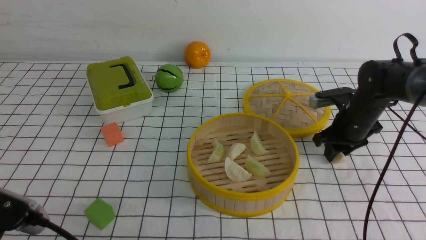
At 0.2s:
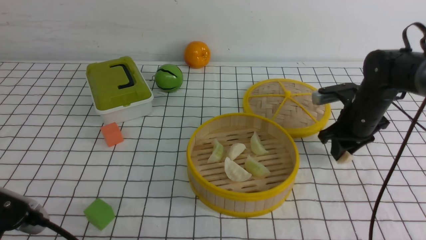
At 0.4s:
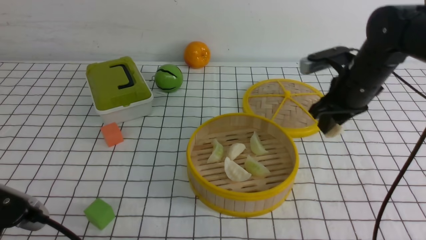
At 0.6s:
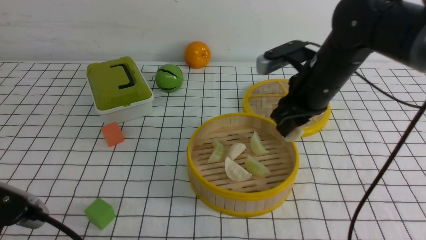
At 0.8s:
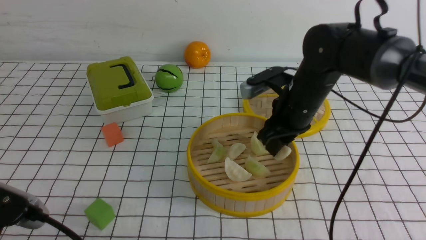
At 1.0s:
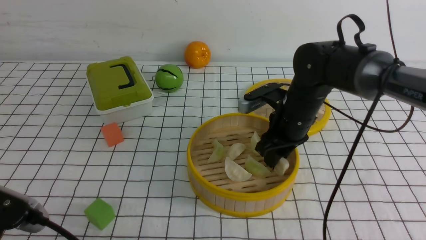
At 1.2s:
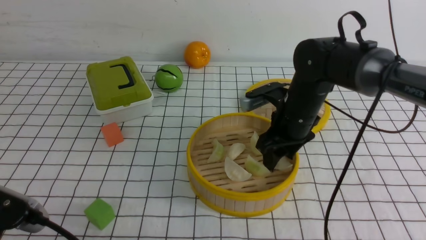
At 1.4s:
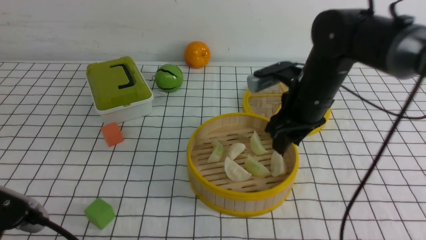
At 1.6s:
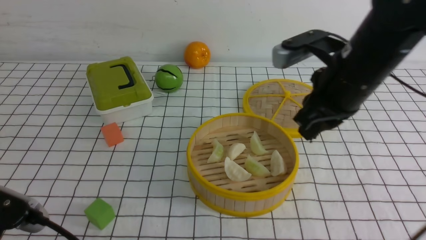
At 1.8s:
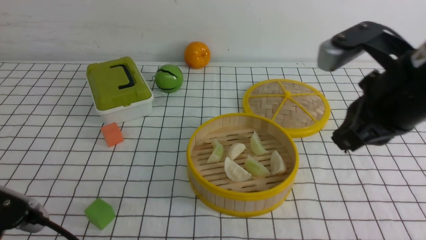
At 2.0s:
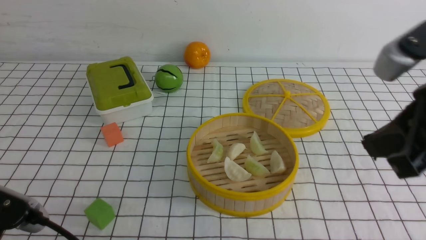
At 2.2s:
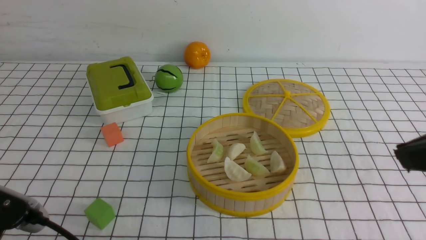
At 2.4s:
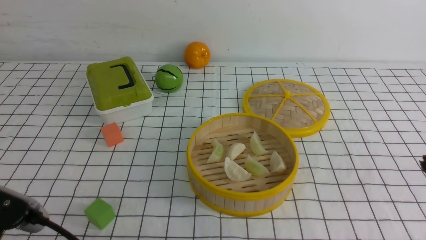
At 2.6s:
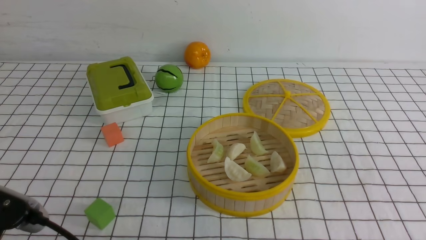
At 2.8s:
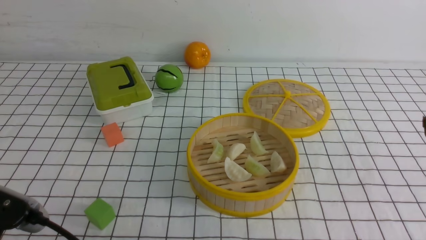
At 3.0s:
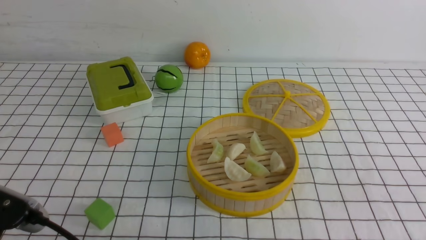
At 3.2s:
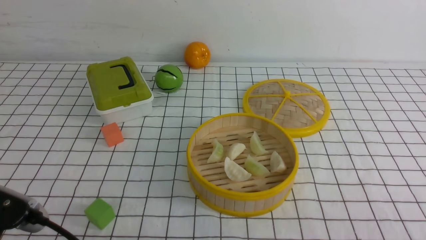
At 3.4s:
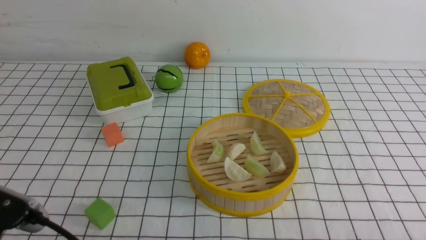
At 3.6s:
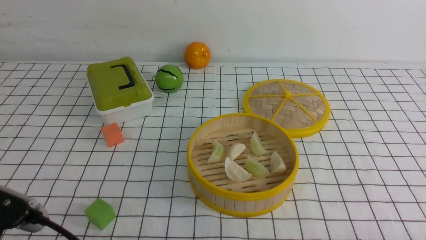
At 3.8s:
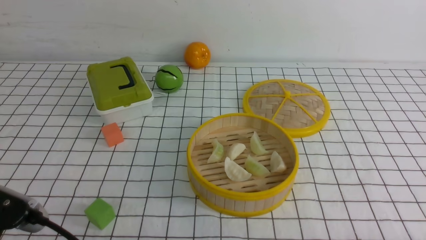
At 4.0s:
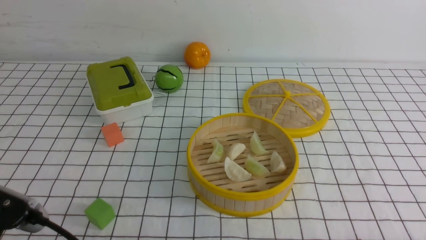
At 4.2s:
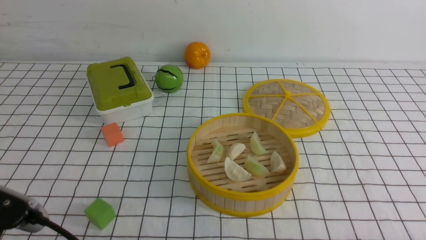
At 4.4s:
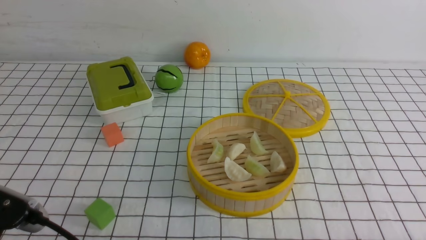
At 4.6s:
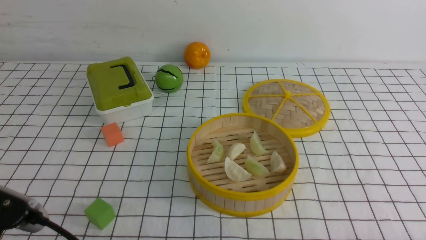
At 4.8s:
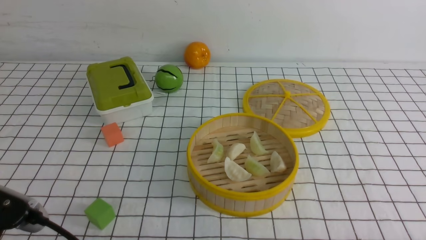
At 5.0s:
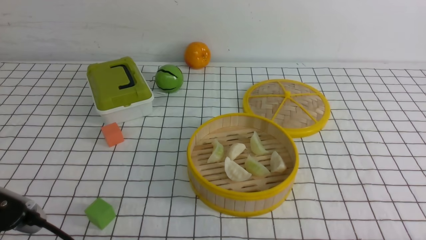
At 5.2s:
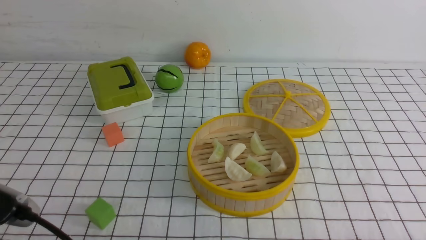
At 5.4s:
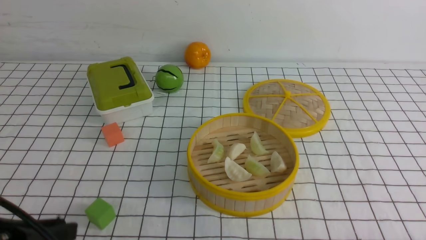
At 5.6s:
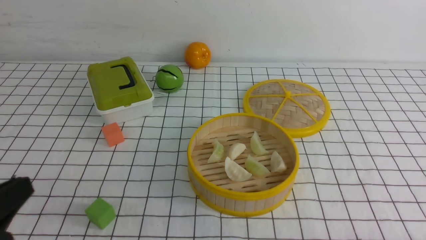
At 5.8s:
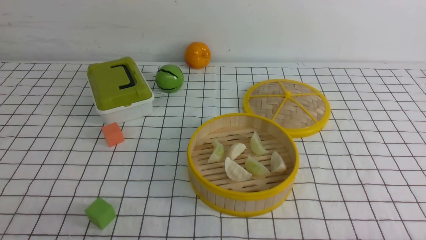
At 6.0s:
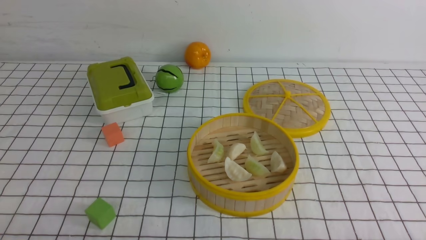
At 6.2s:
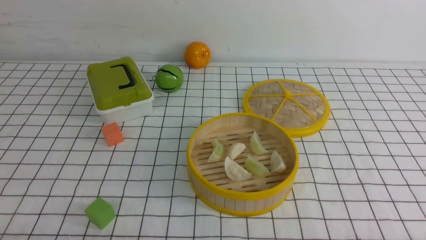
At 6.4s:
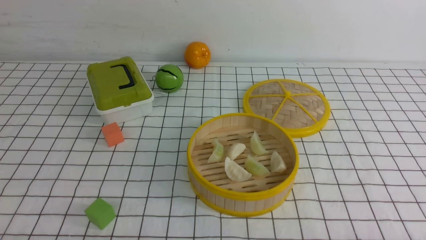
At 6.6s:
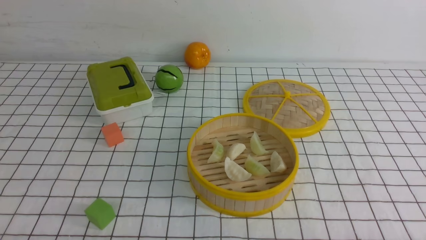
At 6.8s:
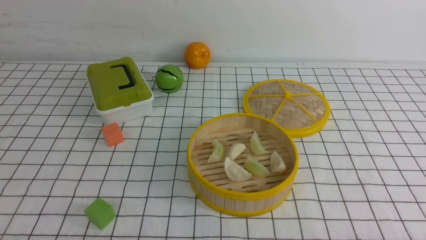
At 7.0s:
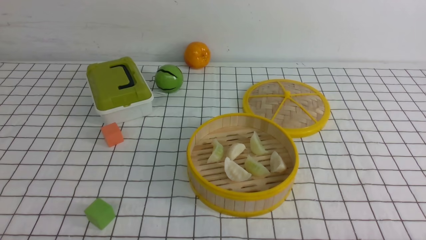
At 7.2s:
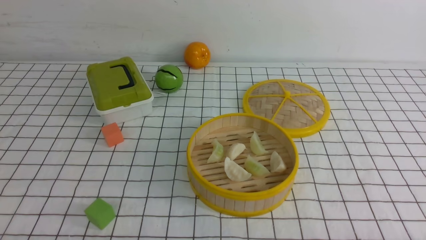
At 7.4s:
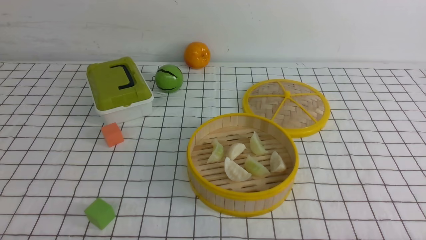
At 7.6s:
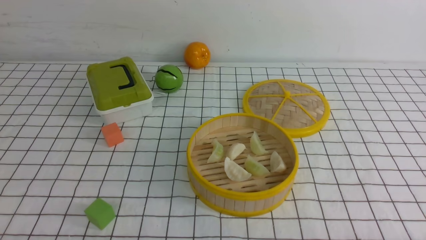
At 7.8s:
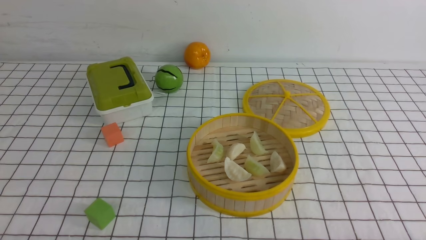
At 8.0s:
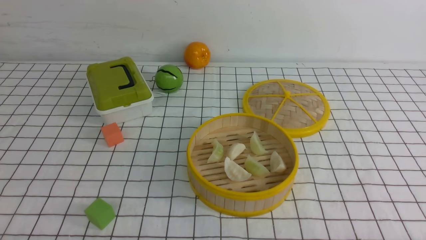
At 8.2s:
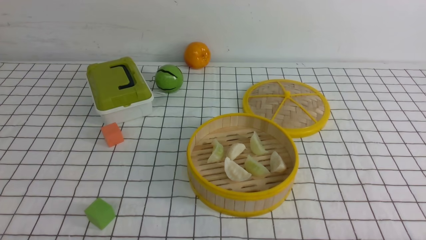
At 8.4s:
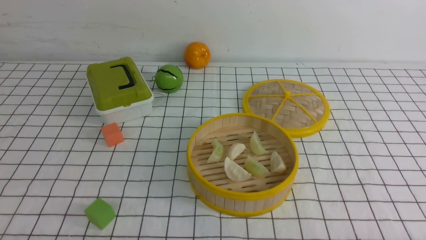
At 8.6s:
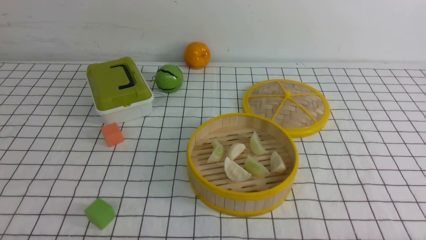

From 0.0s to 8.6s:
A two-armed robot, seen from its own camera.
Task of the whole recording: put the dumplings into the steamer on the table with the white tablecloth.
Step, from 0.8s to 1.6s: use the right arm to put the dumpling into the steamer.
From 0.0s to 1.4s: The right gripper goes some 15 cm to the left, upward and backward.
From 1.4s to 2.8s: The right gripper goes approximately 30 cm backward, upward and to the right, and closes.
From 4.4s to 5.8s: The left gripper moves approximately 5 cm.
From 7.2s to 8.6s: The two grippers keep their place.

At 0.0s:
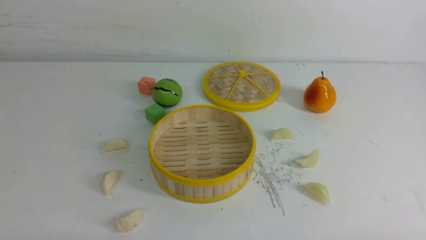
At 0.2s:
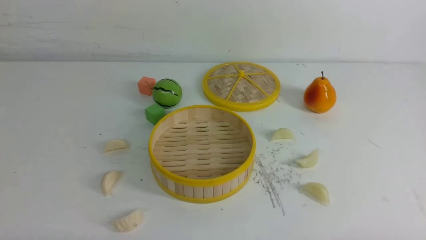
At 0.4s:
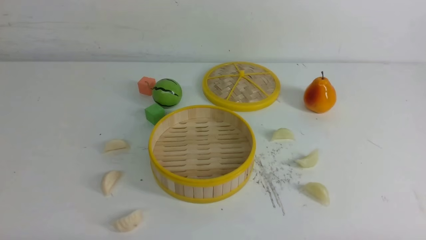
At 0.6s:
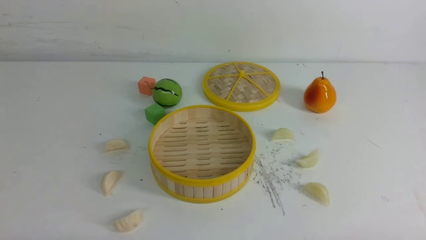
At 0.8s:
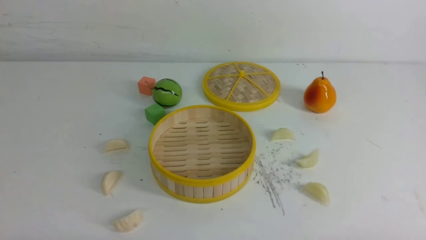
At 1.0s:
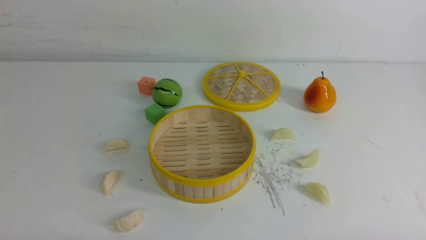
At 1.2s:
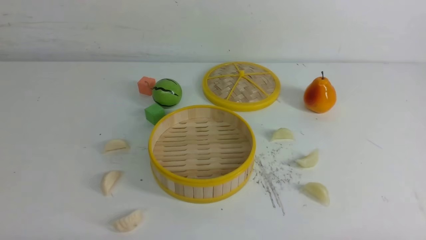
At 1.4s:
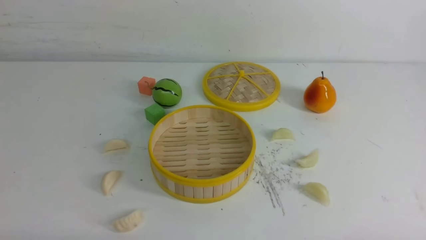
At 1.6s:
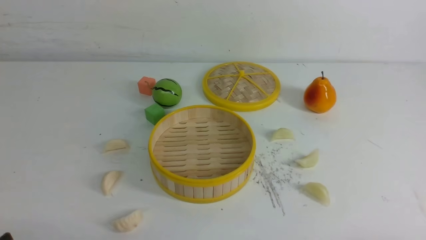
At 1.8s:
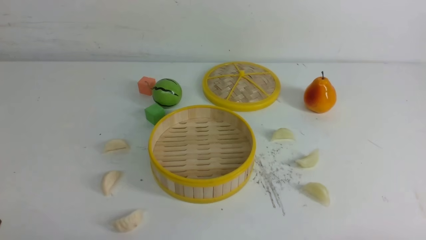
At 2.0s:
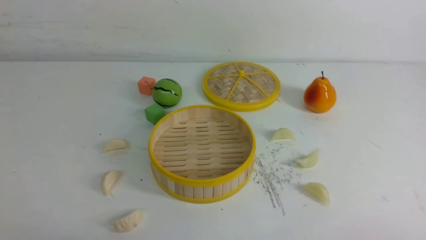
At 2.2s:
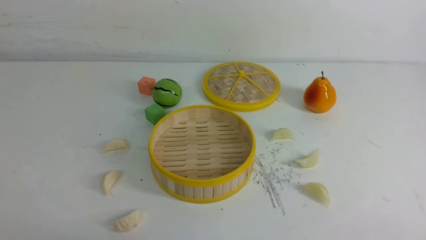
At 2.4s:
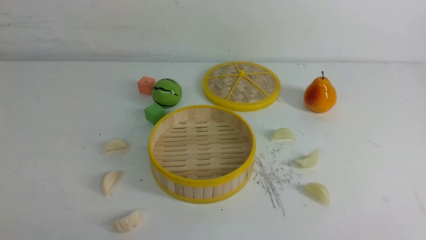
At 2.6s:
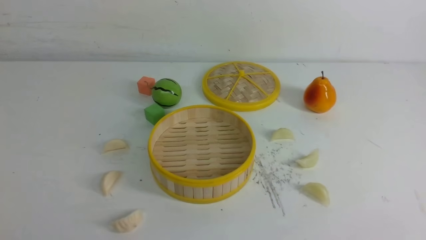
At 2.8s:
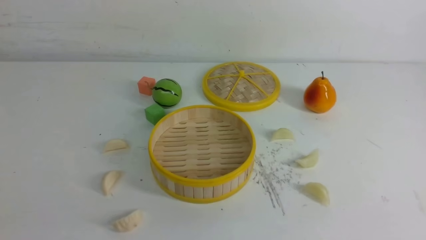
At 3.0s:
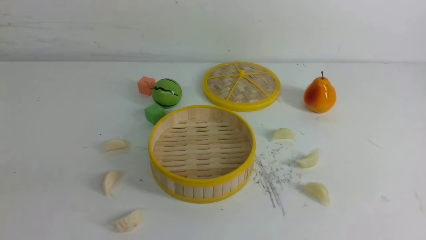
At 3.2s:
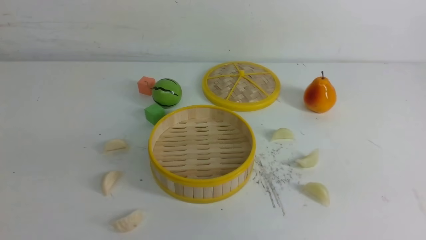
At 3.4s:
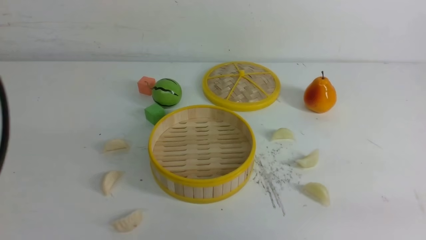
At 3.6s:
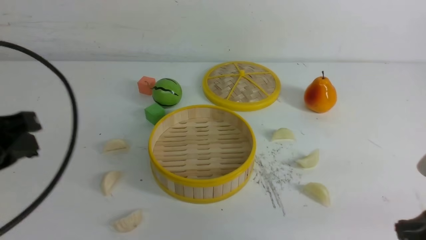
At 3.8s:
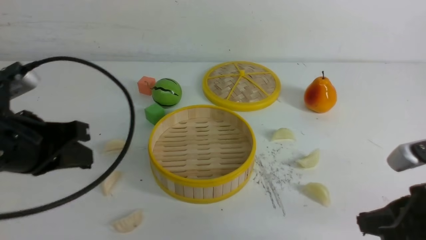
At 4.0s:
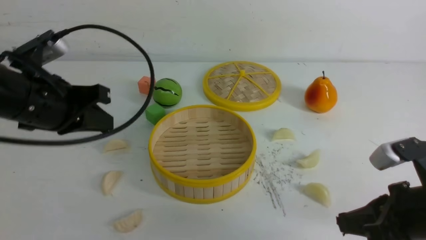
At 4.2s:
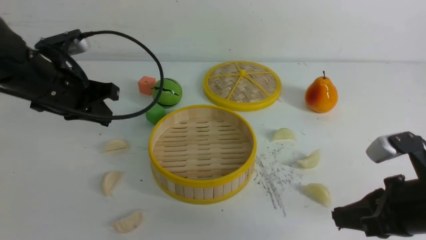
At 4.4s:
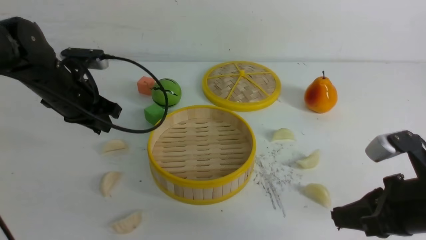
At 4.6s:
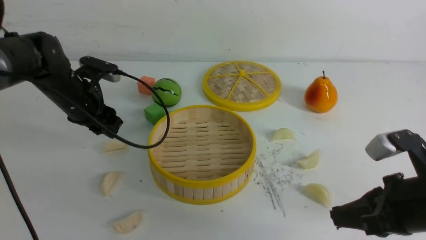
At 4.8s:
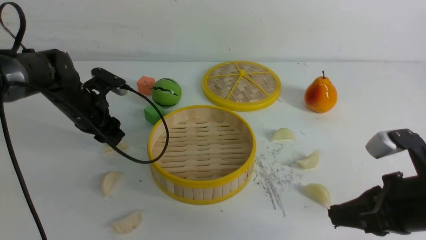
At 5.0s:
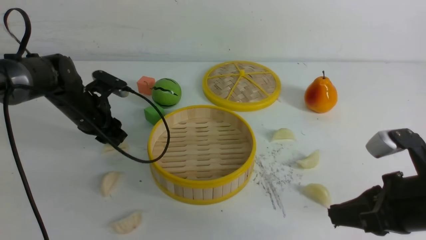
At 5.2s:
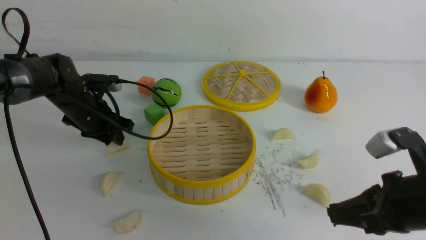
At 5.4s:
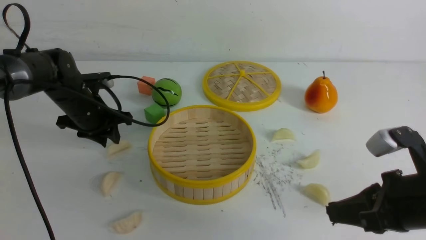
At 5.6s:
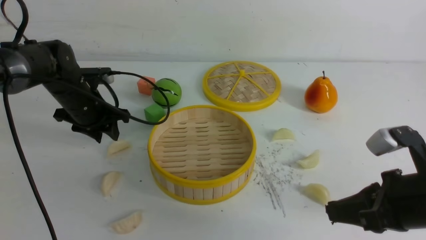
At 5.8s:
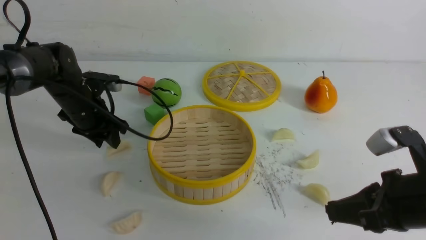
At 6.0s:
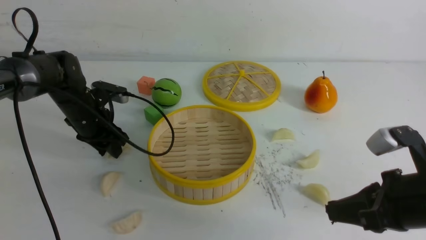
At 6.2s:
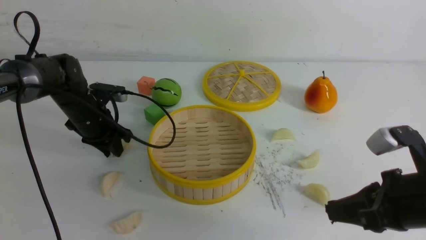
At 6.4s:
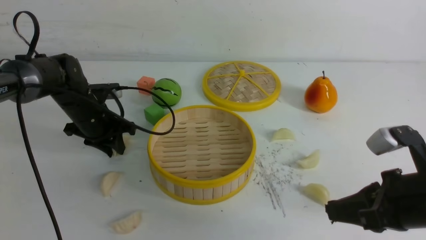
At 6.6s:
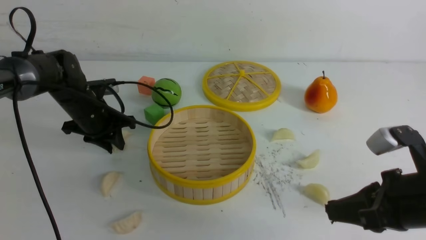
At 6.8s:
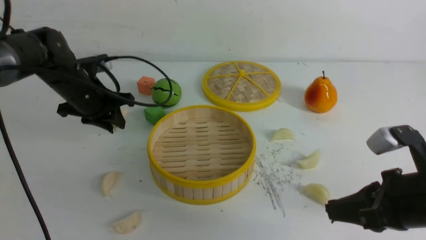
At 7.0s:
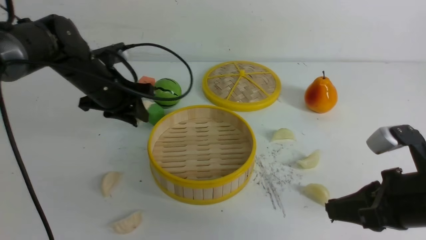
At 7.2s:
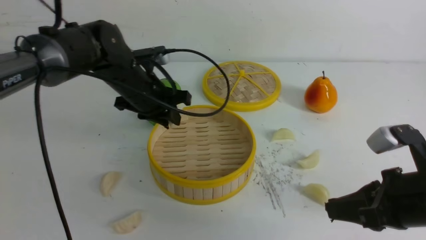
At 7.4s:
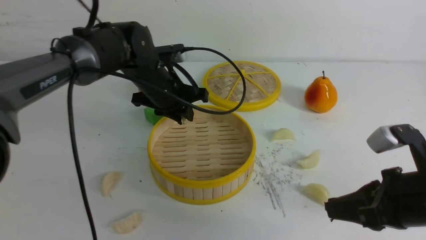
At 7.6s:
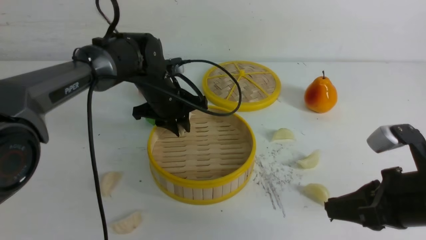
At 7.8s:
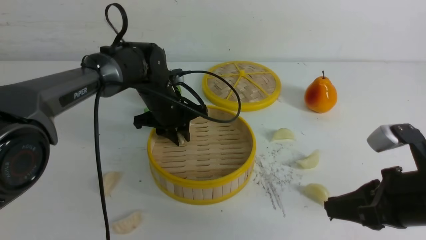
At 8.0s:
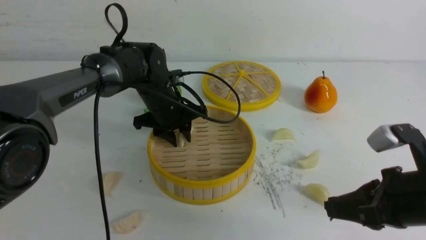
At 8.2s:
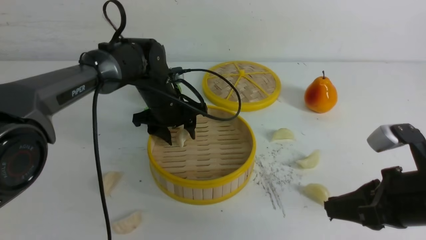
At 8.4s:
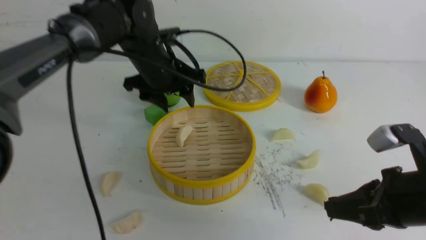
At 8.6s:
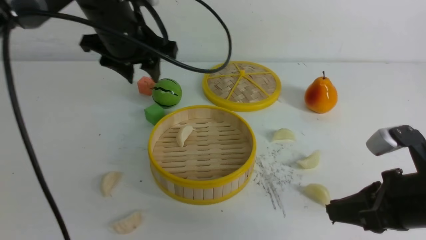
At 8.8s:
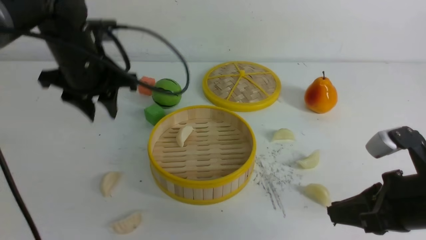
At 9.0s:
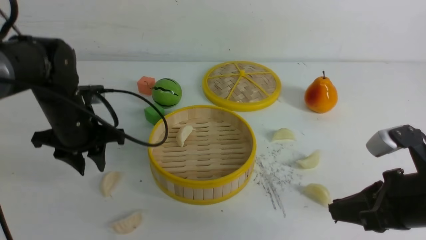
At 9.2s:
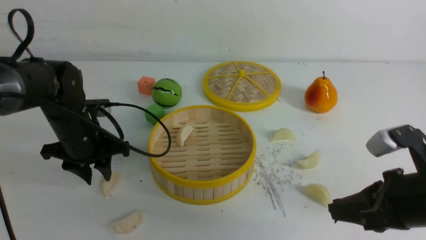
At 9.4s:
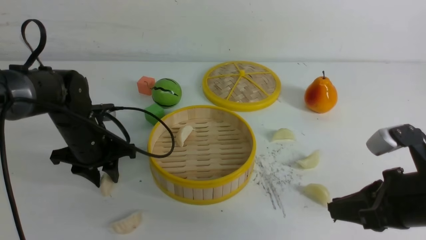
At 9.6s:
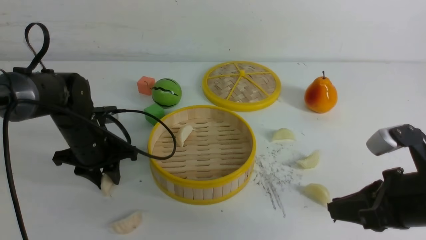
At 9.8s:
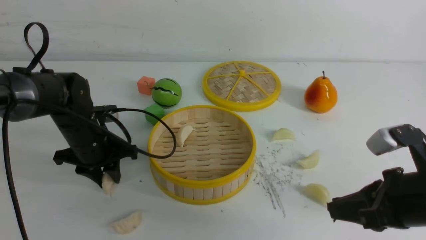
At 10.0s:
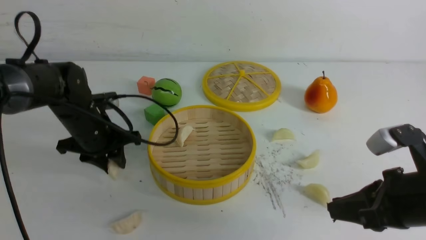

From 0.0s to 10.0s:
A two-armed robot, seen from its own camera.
Task of the whole recording: put the dumplings into the steamer on the white table.
Step, from 0.0s to 6.6s: use the left arm to grab a dumpling.
Step, from 6.8s to 8.0s: use the left arm to put the dumpling into the steamer.
Step, from 8.2s to 10.0s: use the left arm to grab a dumpling.
From 2.8s to 4.2s: The left gripper is displaced forward by some 30 cm. The right gripper shifts some 20 cm forward and downward.
From 4.2s to 5.8s: The left gripper is displaced downward and forward by about 15 cm, and opens.
From 5.8s to 7.2s: The left gripper travels to the right and upward by roughly 10 cm, and closes its fingers.
From 7.2s to 8.6s: The left gripper travels upward by roughly 10 cm, and opens its fingers.
From 8.6s to 10.0s: The left gripper moves downward and to the left, approximately 15 cm.
